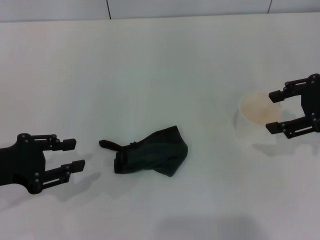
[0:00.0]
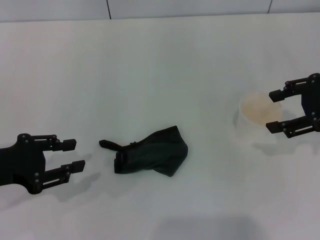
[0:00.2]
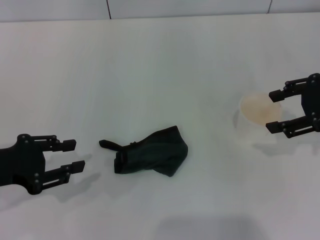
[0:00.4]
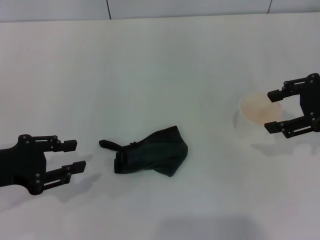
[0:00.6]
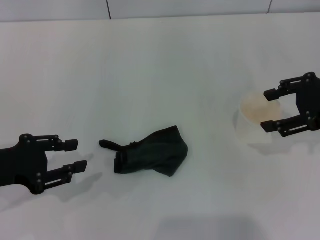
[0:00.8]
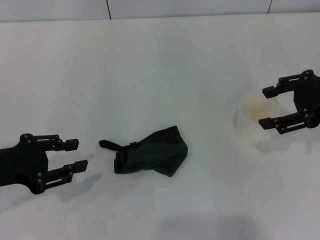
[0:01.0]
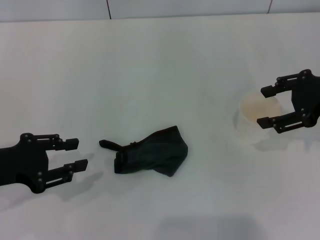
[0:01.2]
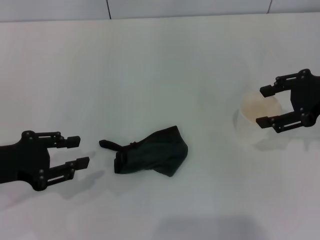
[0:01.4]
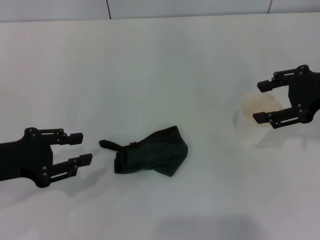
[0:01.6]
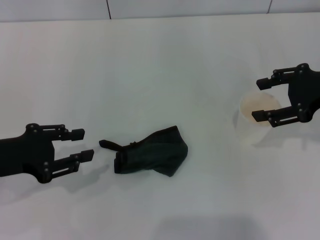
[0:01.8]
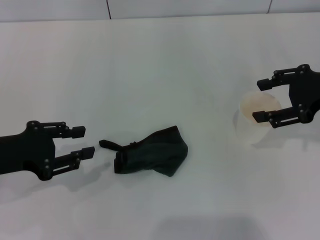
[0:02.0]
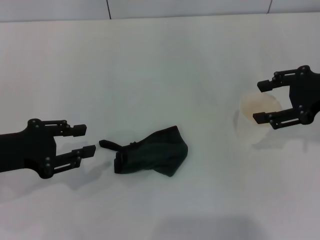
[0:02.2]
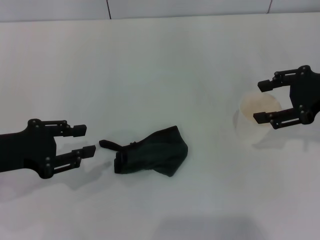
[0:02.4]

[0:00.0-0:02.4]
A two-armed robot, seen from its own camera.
0:00.0 to 0:01.2: Neither gripper changes place.
0:01.2 to 0:02.4: The grippers move only a little.
